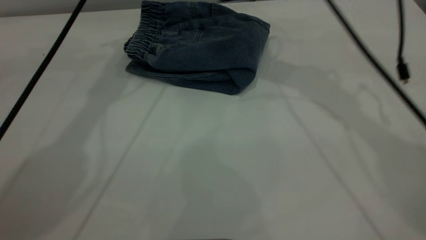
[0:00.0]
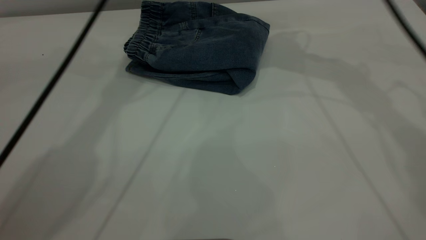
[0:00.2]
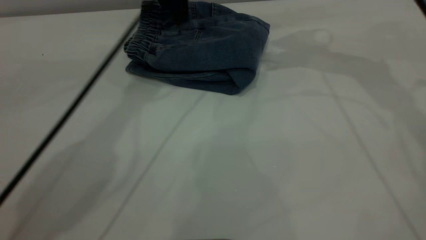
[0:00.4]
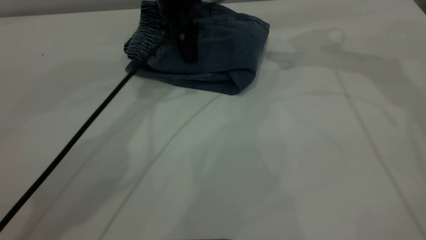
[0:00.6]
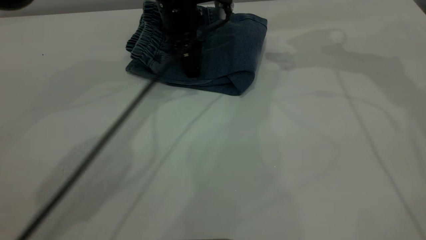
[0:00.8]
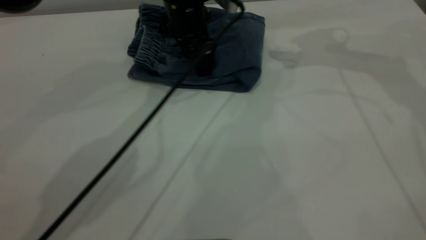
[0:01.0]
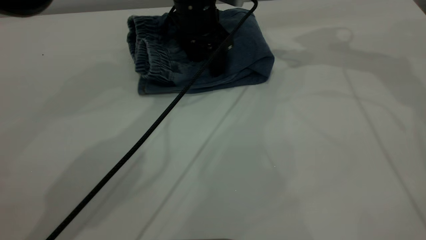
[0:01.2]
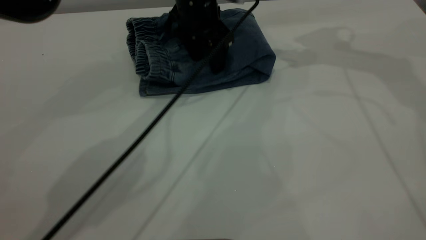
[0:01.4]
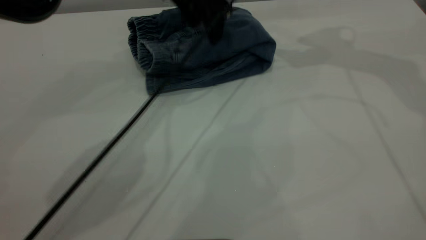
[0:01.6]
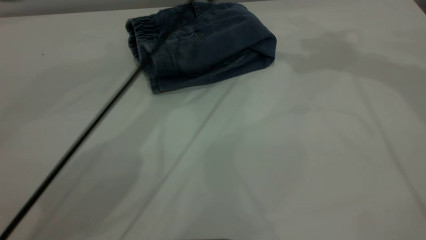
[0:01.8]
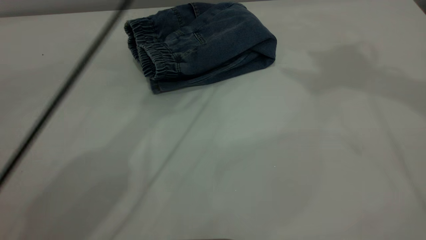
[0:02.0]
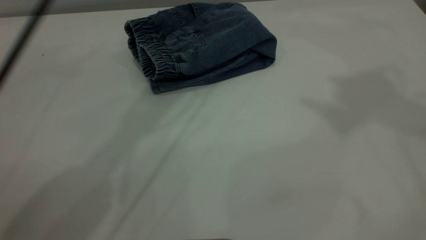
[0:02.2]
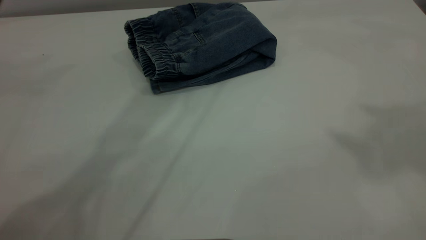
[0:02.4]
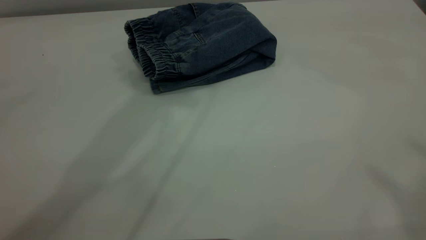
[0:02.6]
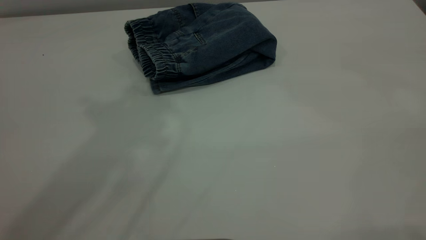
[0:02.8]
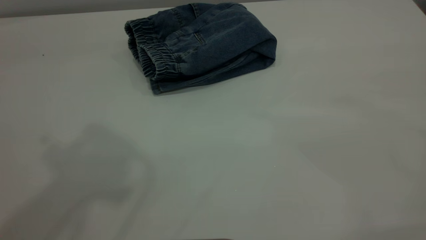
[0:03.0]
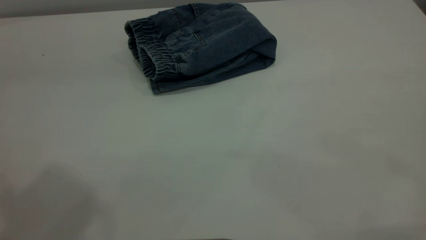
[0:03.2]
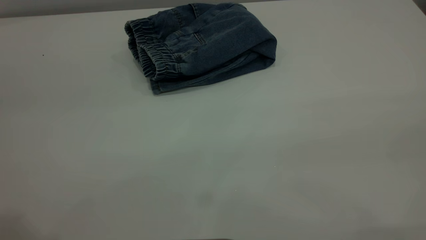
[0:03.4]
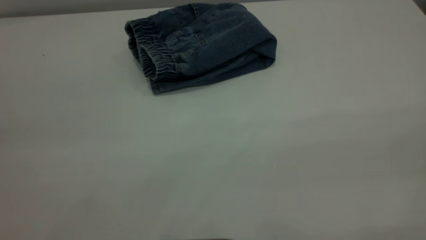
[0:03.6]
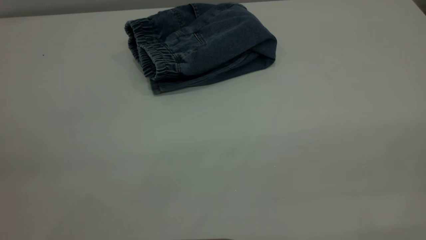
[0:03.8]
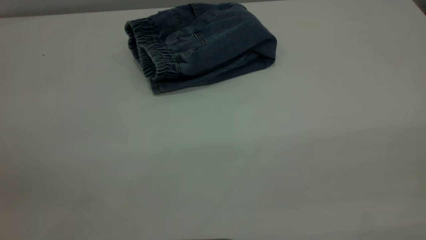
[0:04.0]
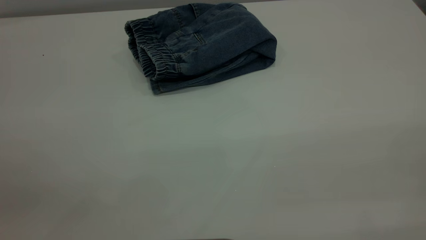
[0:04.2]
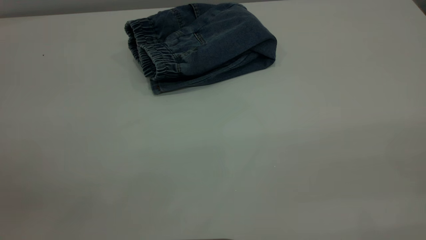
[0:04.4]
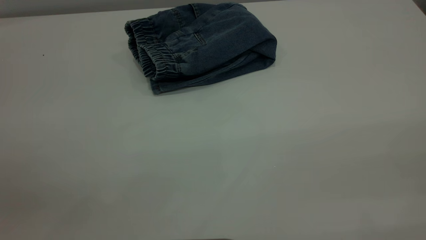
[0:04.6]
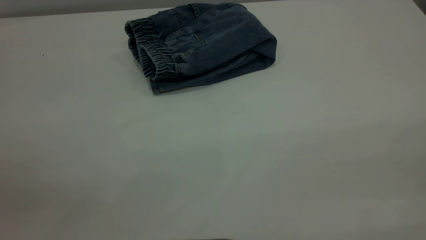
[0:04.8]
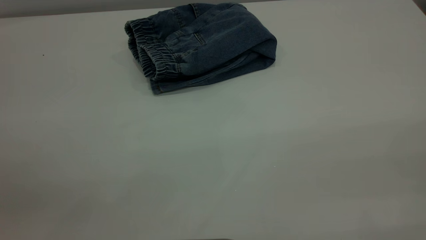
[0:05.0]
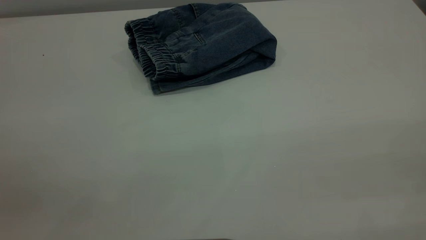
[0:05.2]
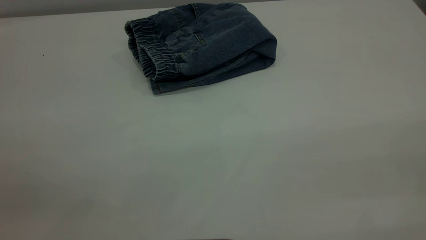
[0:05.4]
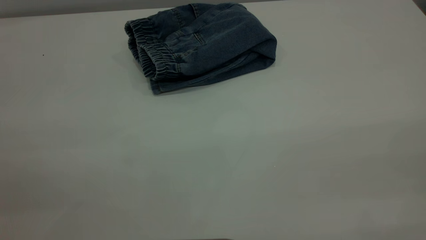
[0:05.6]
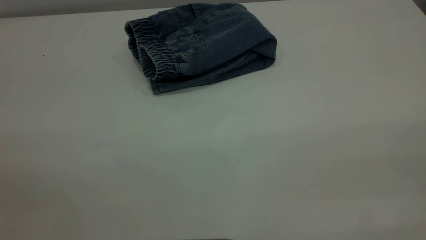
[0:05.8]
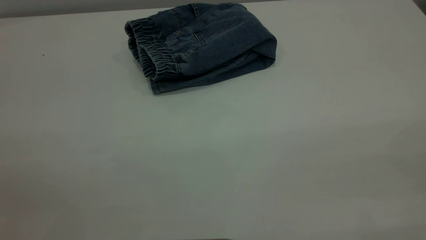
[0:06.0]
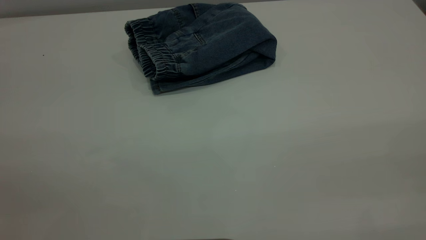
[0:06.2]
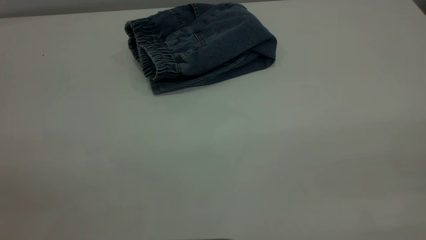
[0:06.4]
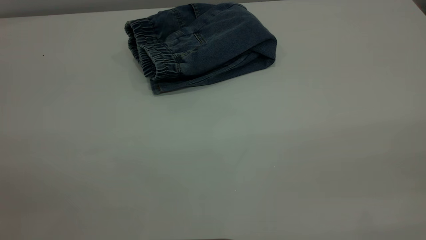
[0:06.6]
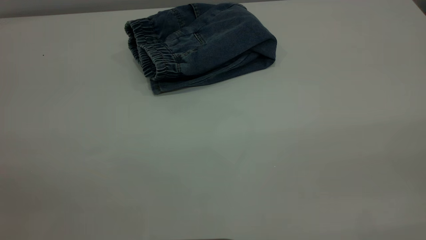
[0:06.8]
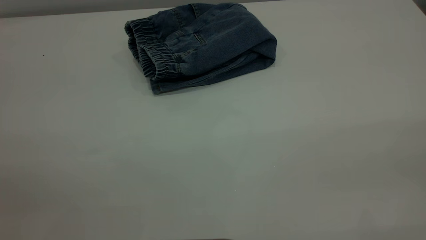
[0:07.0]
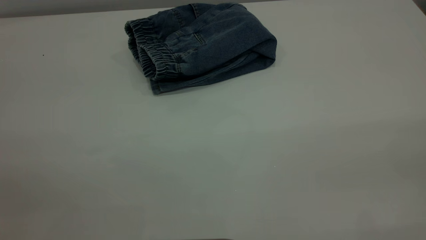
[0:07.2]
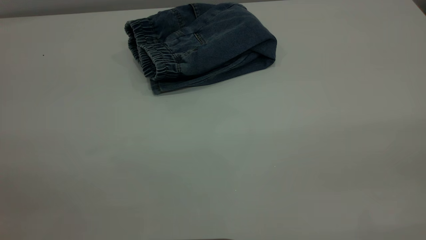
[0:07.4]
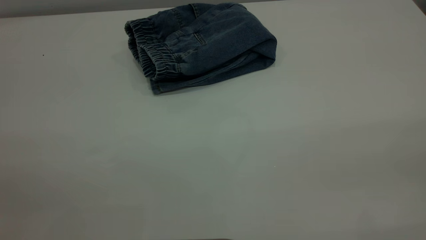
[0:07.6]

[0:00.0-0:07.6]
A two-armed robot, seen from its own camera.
0:00.0 to 0:01.6: The right gripper travels to the right and upward by about 15 cm. Meanwhile the left gripper moves to the right and downward, about 15 cm.
0:01.6 to 0:03.0: The left gripper shifts approximately 40 cm upward, backward and to the left; the right gripper is displaced backward and upward by approximately 50 cm.

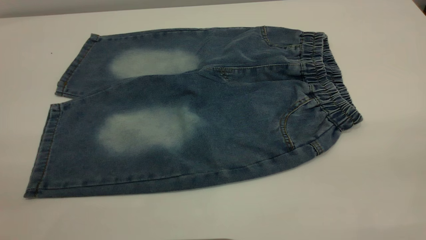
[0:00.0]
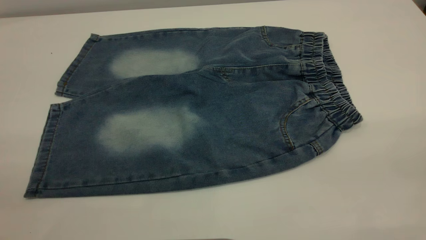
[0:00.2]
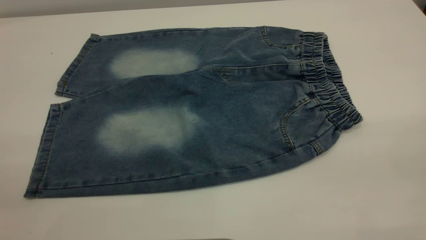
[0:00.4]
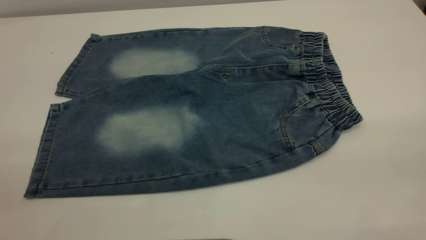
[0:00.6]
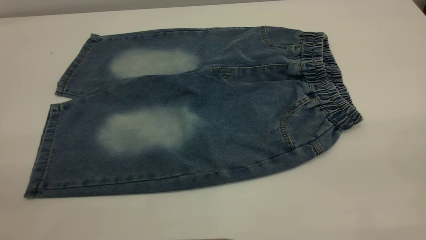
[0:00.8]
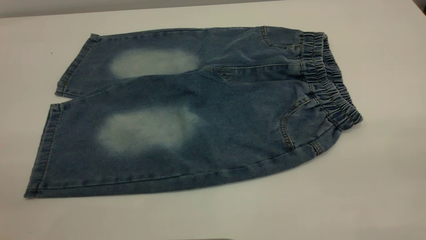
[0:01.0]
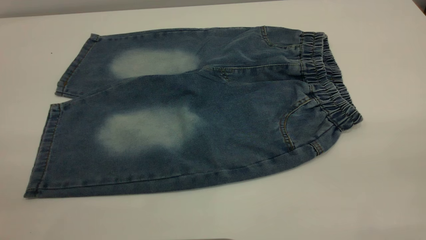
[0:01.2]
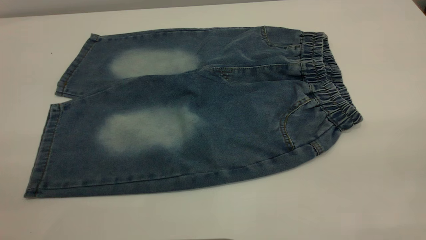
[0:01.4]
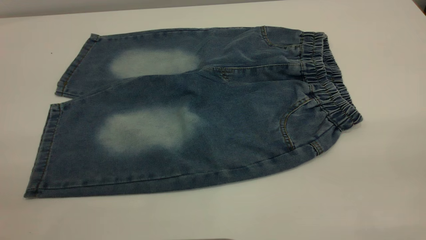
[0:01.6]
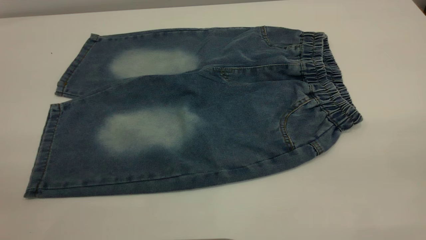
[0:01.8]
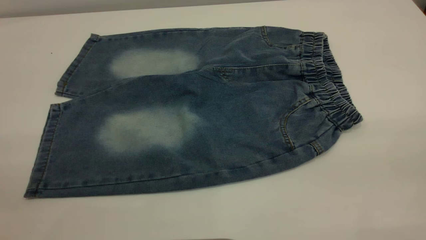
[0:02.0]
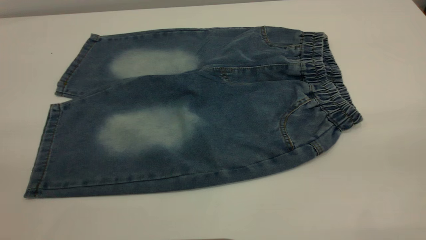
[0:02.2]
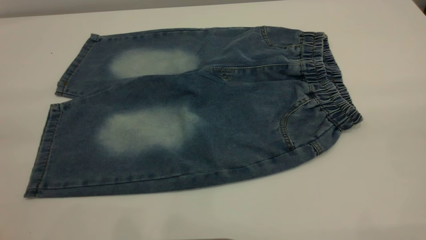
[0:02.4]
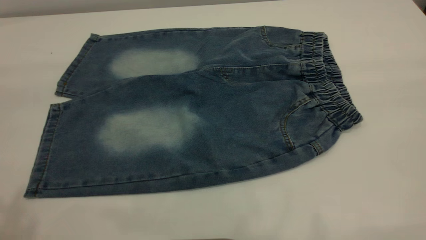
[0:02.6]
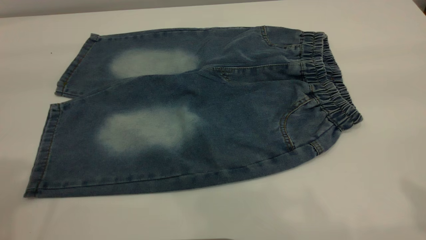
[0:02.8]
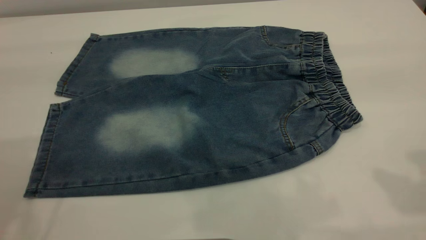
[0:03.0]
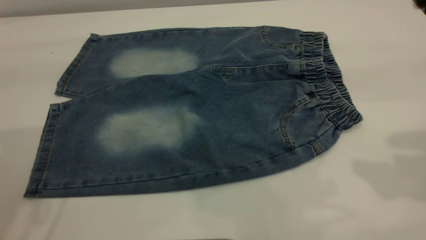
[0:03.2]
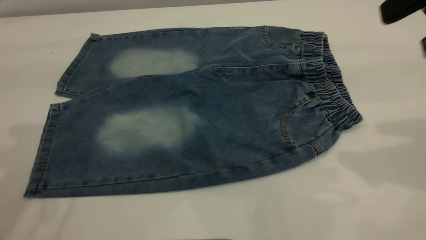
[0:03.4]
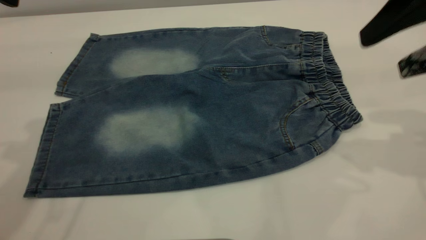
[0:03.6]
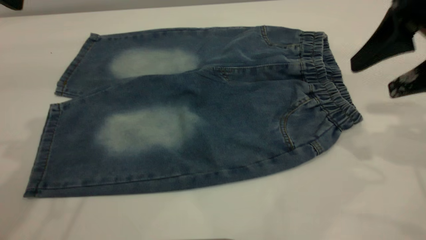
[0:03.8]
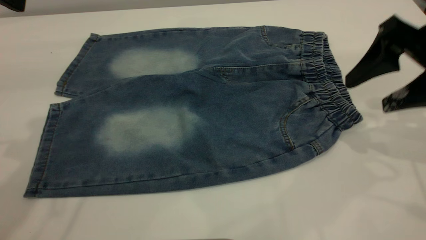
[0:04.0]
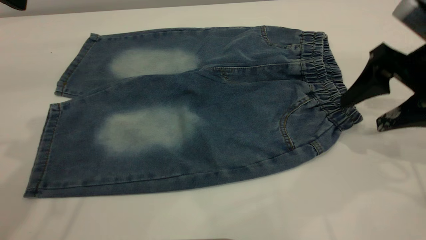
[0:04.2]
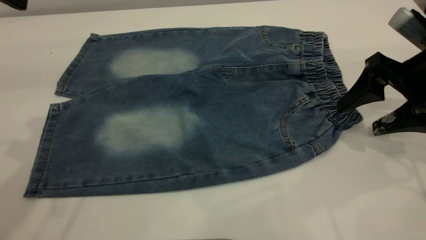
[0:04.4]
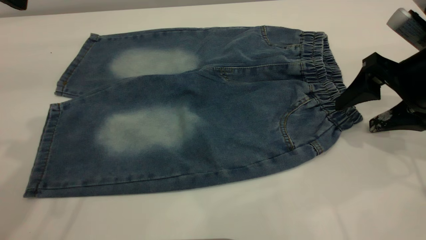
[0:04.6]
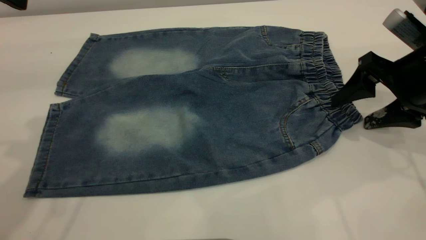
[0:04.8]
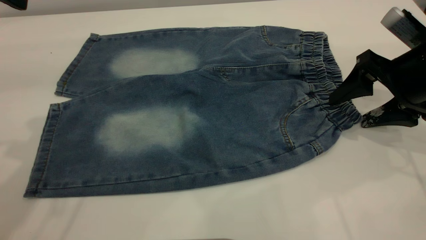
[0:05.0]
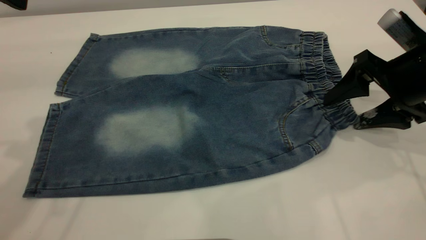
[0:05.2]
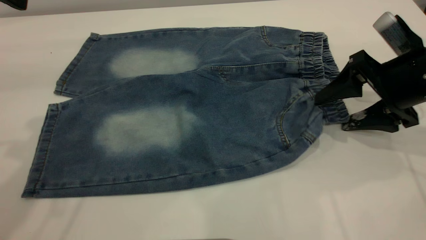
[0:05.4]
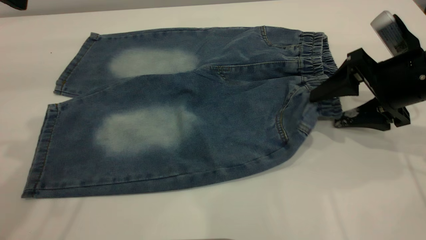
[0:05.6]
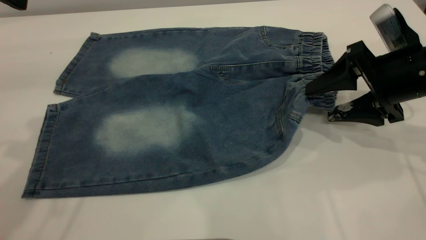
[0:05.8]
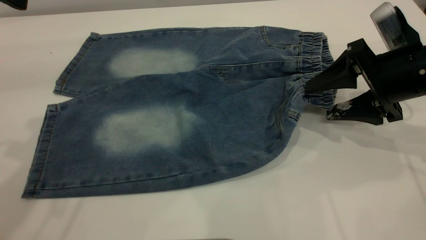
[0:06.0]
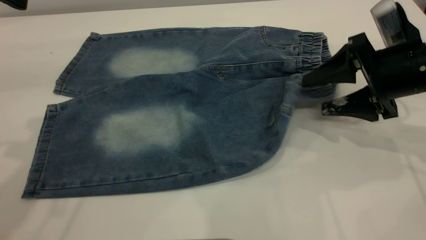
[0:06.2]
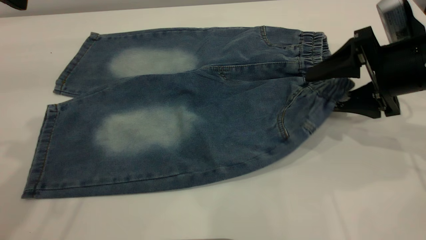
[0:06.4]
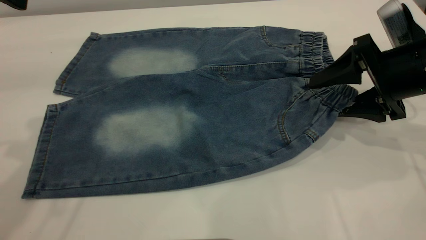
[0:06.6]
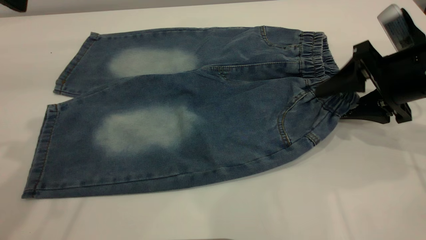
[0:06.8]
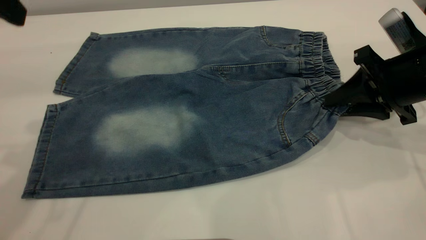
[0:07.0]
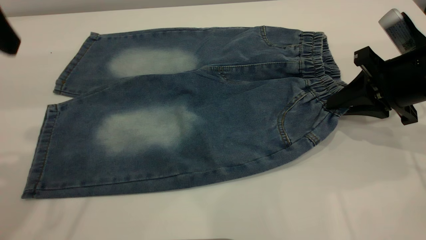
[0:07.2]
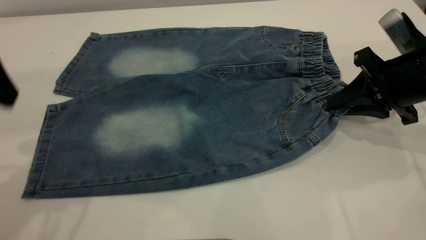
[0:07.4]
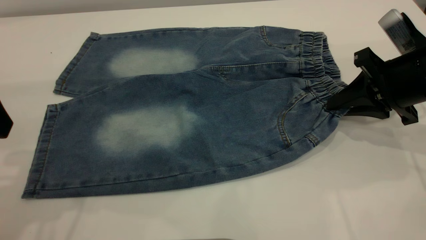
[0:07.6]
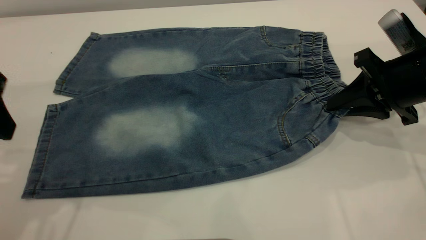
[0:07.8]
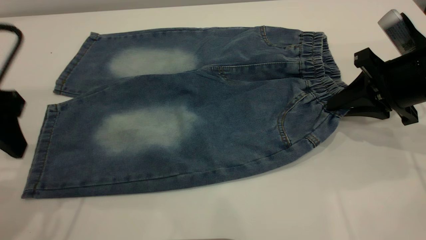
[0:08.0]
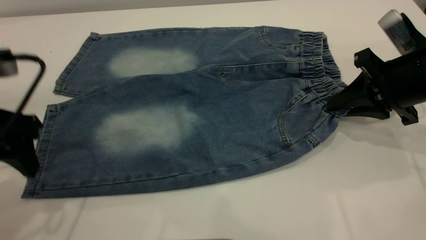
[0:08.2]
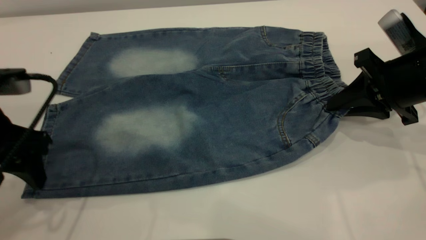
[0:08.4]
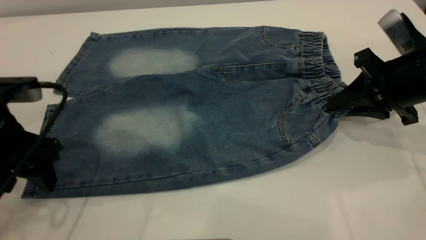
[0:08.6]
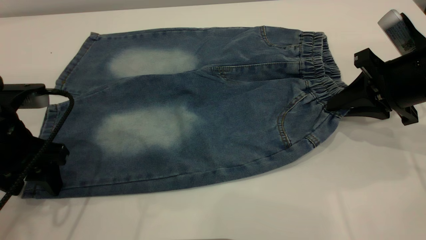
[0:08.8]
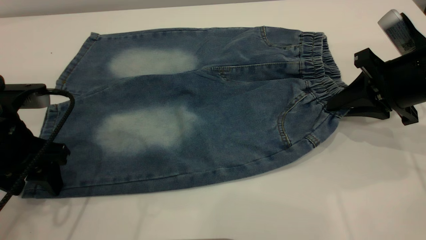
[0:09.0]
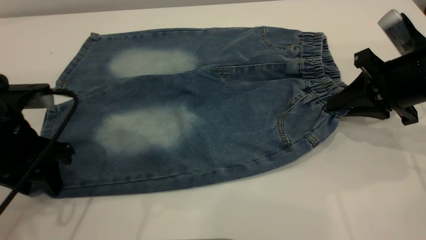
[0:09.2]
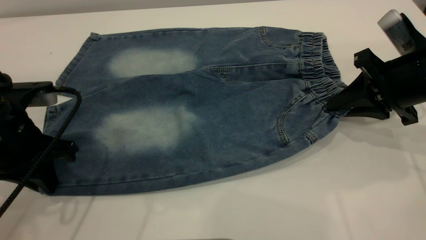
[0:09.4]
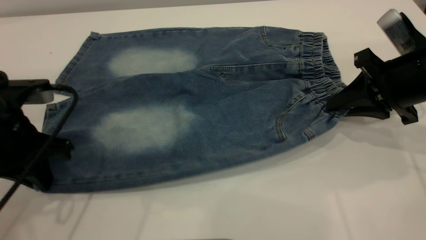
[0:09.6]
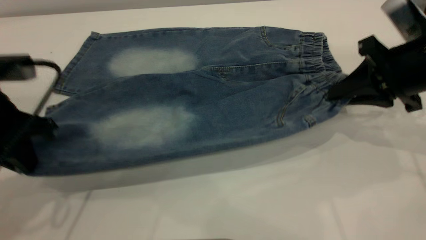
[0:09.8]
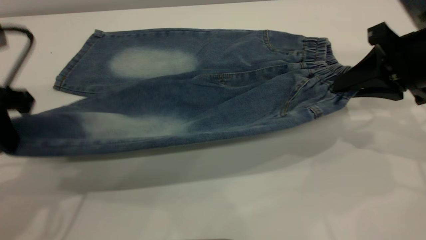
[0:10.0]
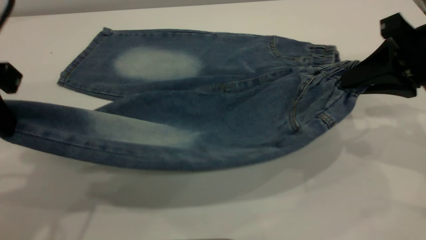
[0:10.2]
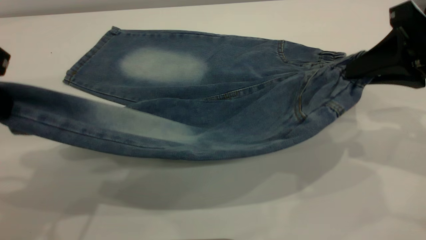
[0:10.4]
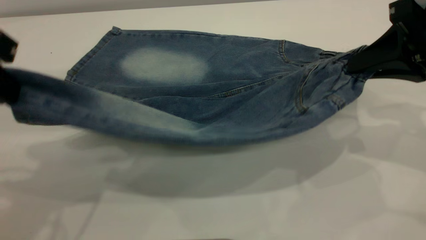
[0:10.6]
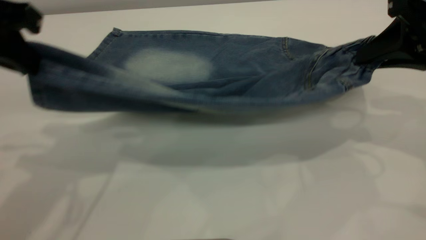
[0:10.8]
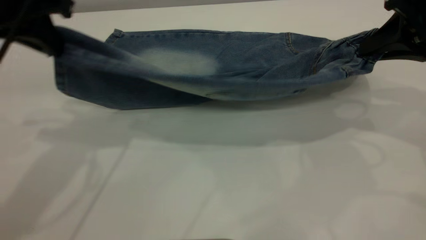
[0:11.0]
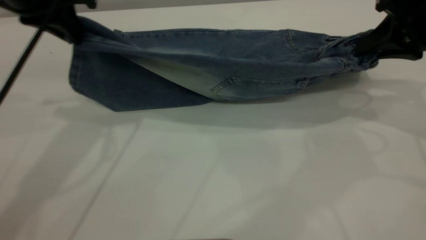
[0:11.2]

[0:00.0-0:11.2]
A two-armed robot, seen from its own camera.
0:00.0 to 0:01.6: Both grippers stay put.
0:03.2 to 0:04.8: The right gripper moves downward and forward, about 20 cm.
0:06.4 to 0:08.0: The left gripper goes some 10 cm downward. The right gripper closes up.
0:08.0 to 0:09.6: The left gripper shifts roughly 5 cm downward, and closes.
0:09.6 to 0:11.2: The left gripper goes roughly 15 cm upward, forward and to the right; the right gripper travels upward by some 5 cm.
